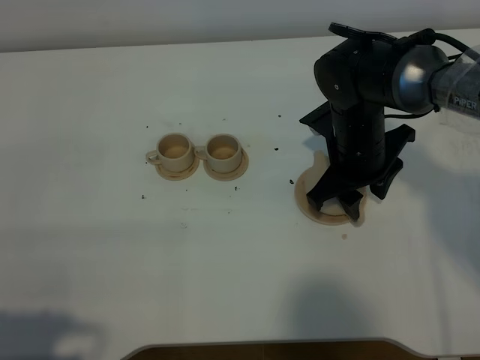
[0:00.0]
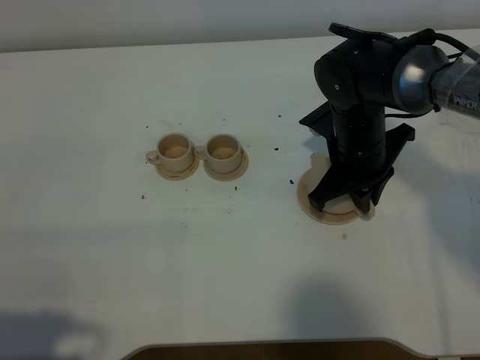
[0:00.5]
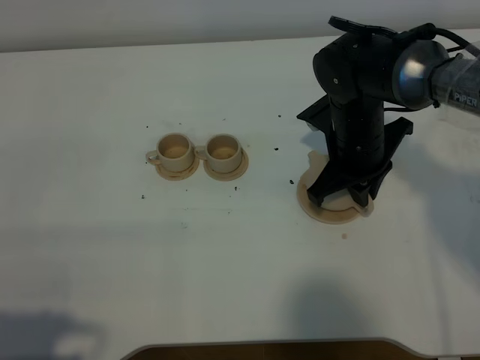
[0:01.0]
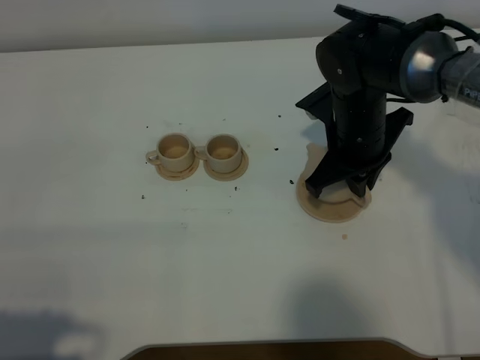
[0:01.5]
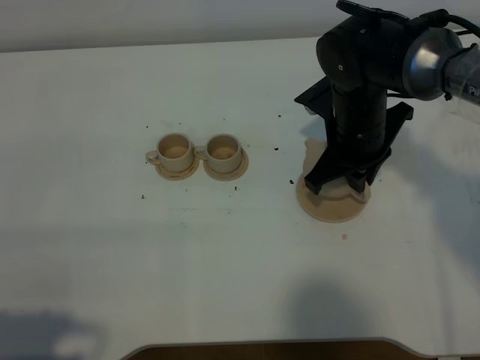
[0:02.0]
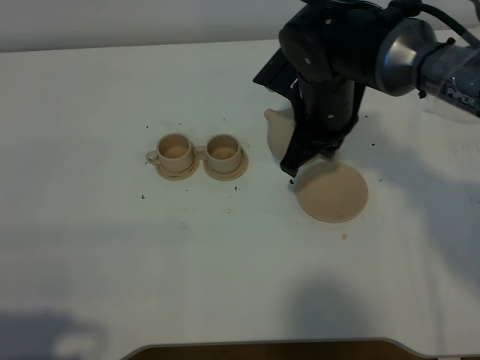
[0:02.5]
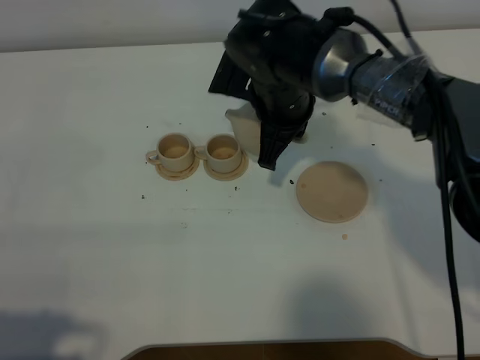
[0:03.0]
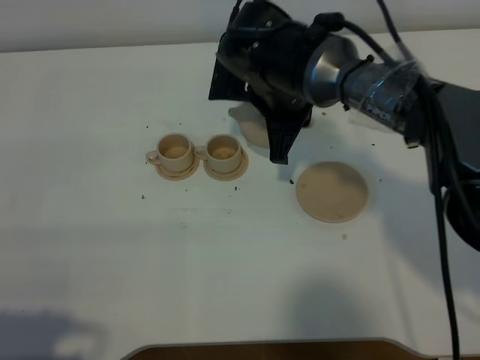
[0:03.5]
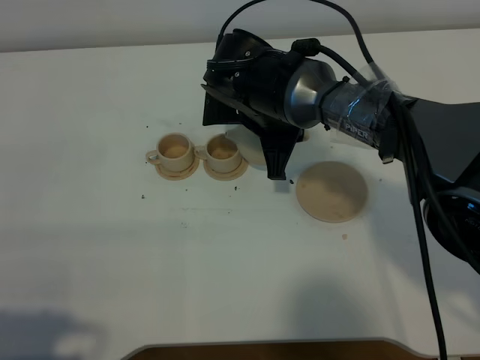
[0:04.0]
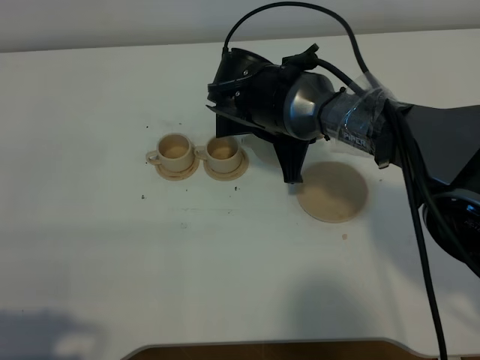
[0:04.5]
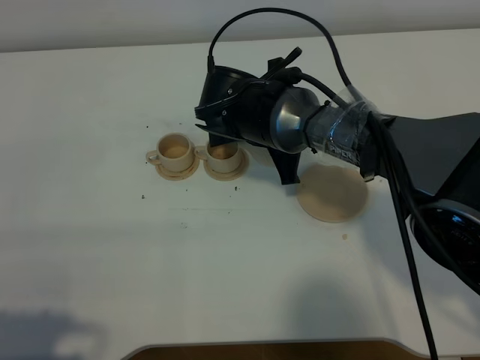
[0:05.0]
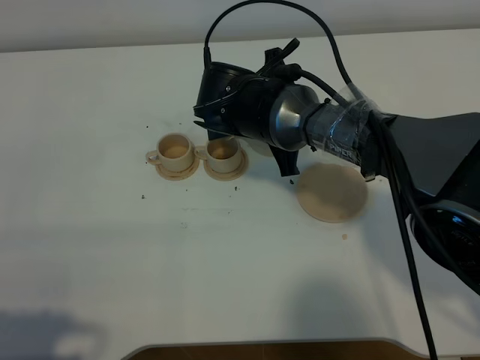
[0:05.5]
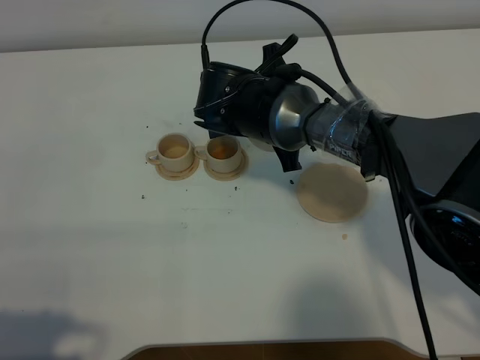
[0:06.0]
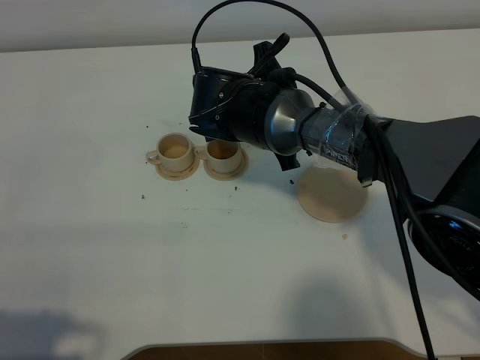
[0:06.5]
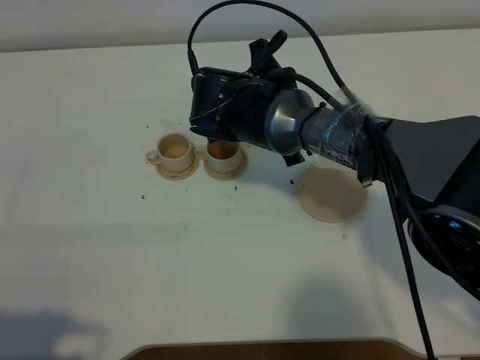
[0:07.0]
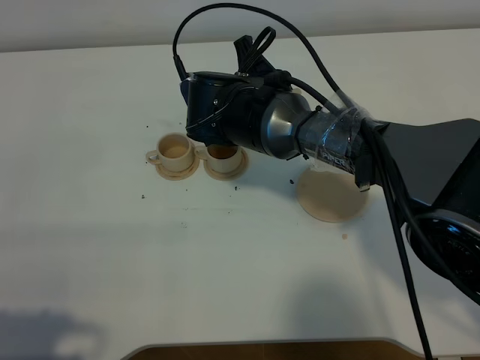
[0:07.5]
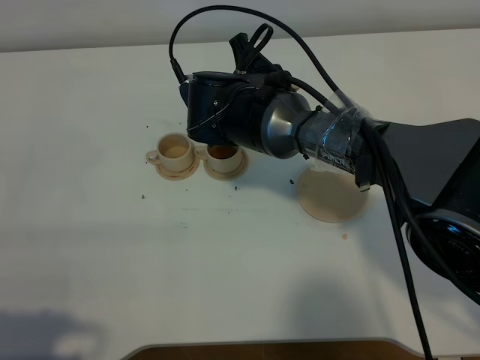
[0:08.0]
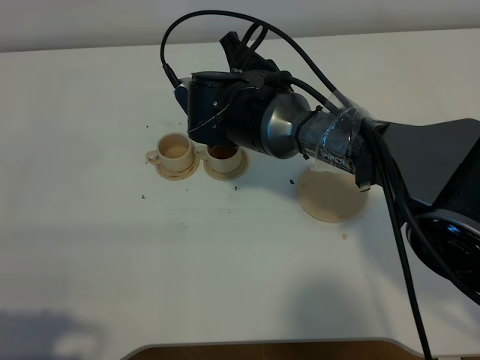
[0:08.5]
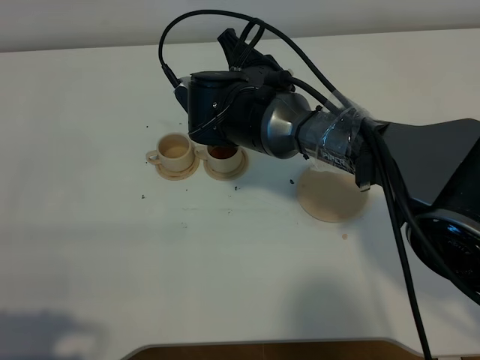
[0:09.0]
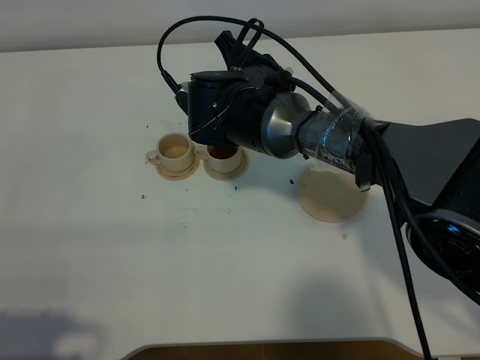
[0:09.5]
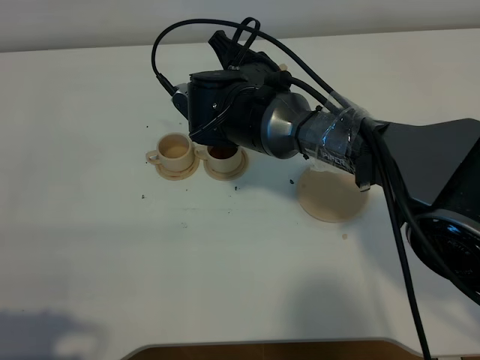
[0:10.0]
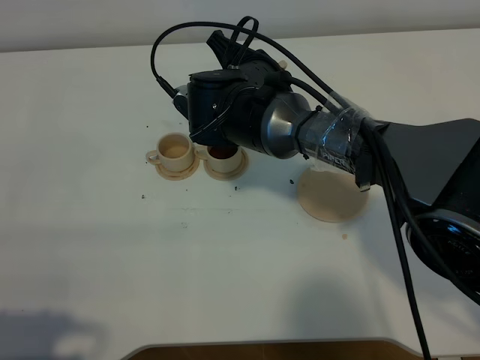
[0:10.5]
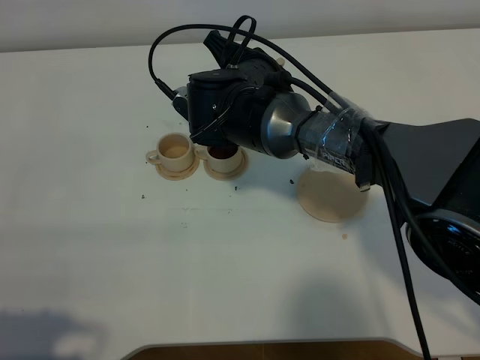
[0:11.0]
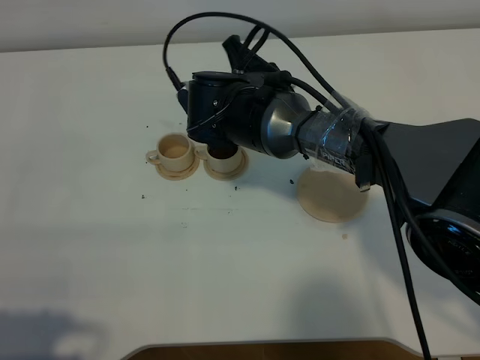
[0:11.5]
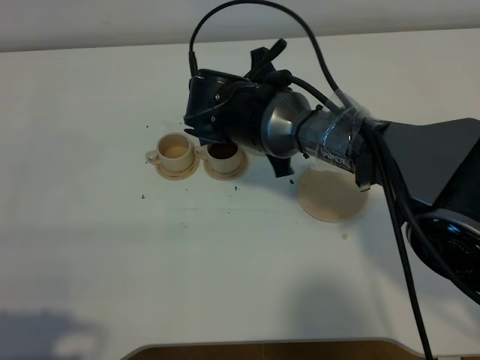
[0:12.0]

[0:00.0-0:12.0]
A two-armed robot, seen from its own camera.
Task of the whole recording: grasp the brown teapot and pour the tea into the two brown teacups one by one, put the brown teapot back in its original place.
0:00.0 to 0:02.0: The right gripper closes.
0:02.0 to 0:04.0: The right gripper travels to the left by about 10 cm.
0:04.0 to 0:06.0: The grippers move only a little.
0:06.0 to 0:08.0: There are only small adjustments of the grippers.
0:08.0 to 0:10.0: The grippers move only a little.

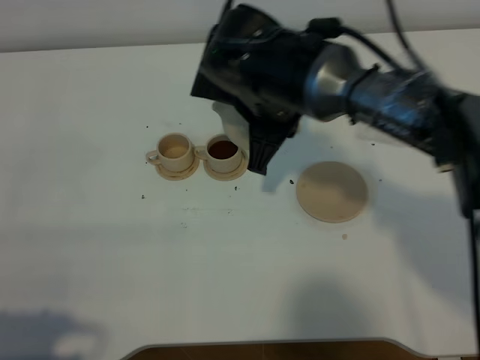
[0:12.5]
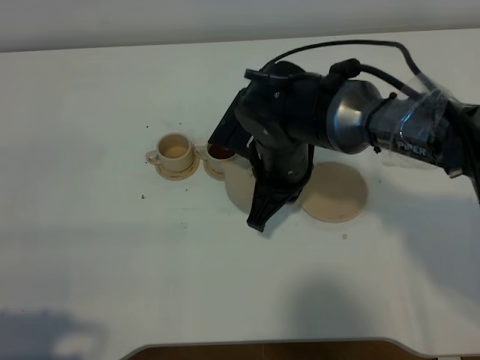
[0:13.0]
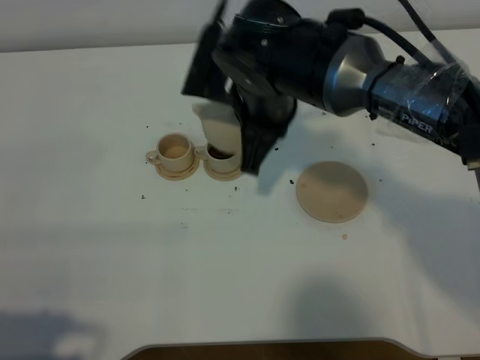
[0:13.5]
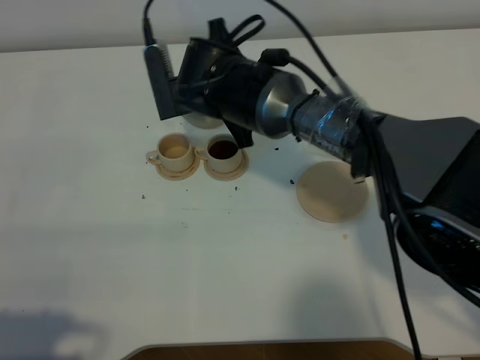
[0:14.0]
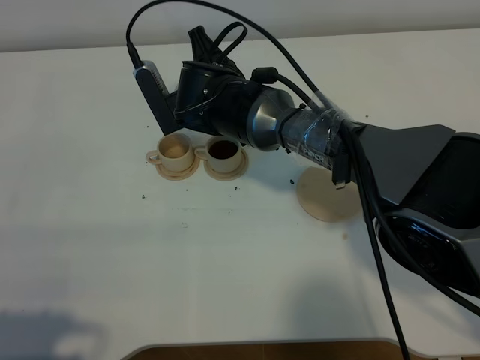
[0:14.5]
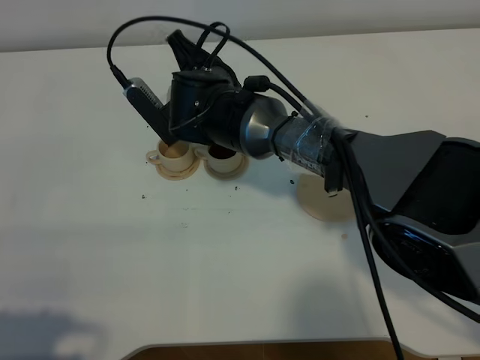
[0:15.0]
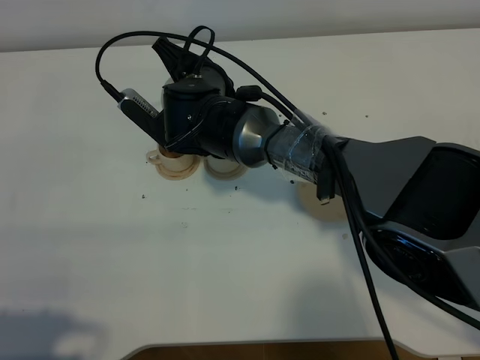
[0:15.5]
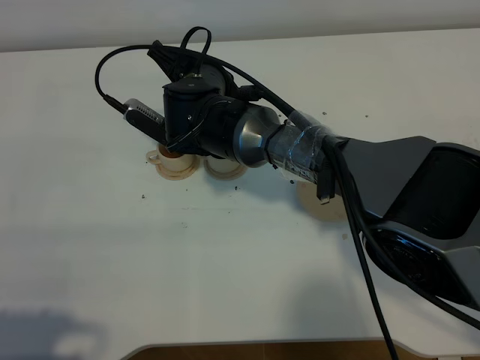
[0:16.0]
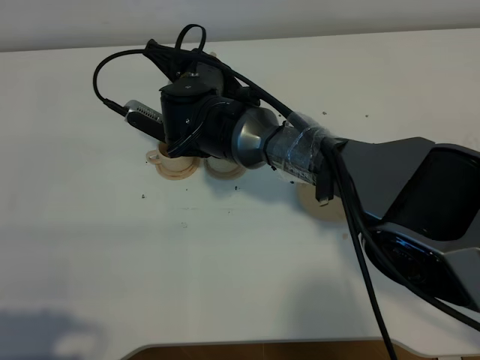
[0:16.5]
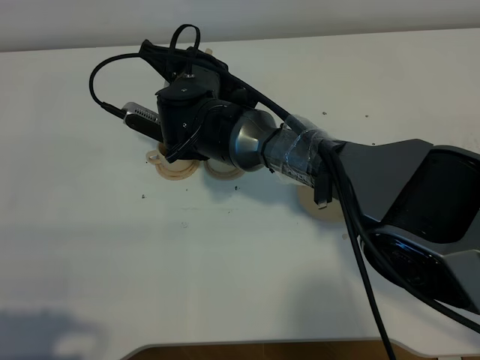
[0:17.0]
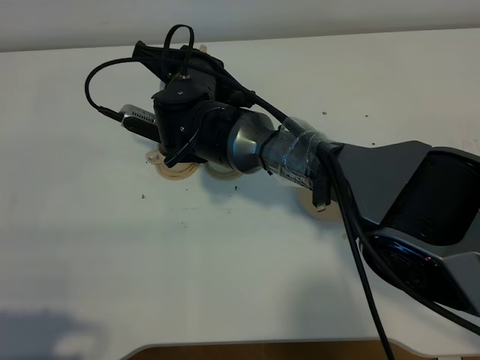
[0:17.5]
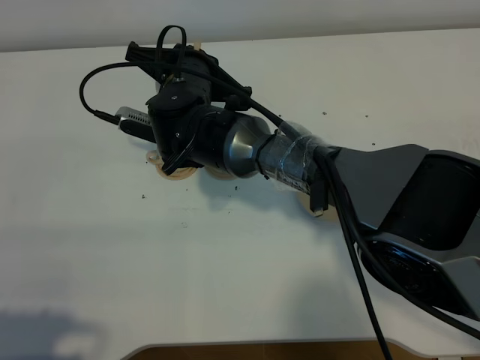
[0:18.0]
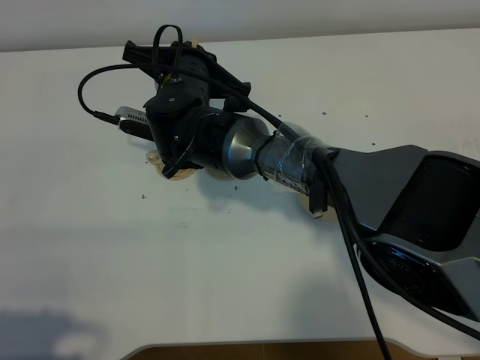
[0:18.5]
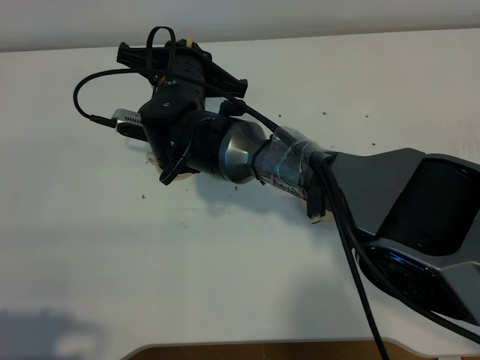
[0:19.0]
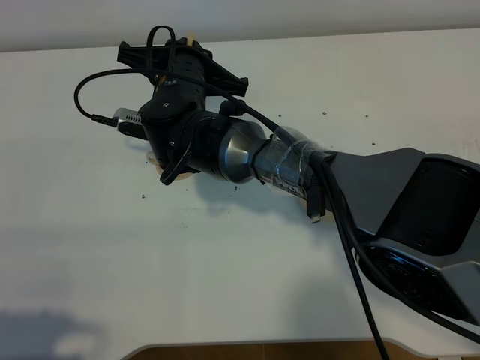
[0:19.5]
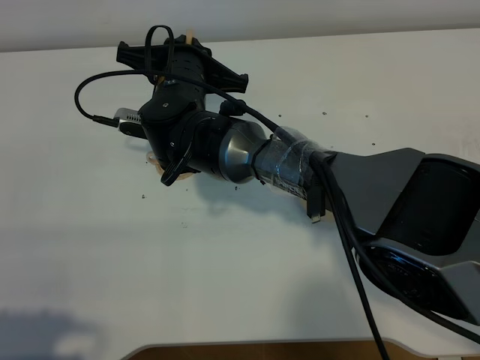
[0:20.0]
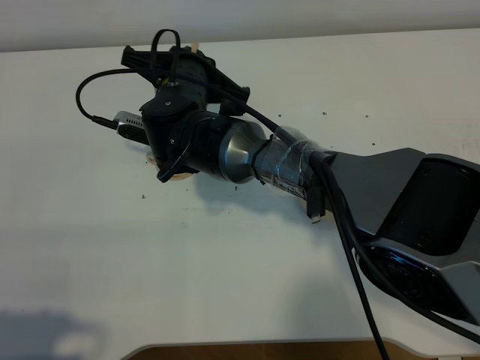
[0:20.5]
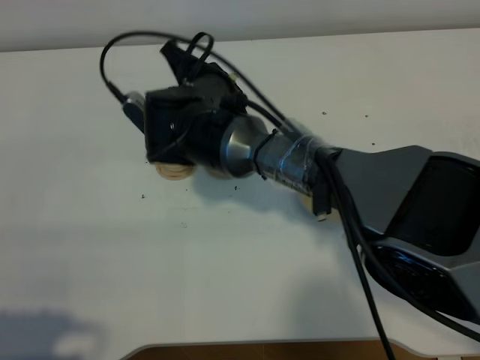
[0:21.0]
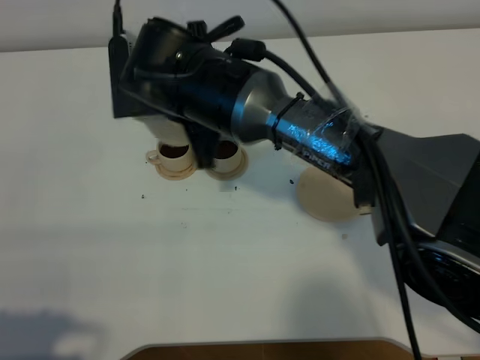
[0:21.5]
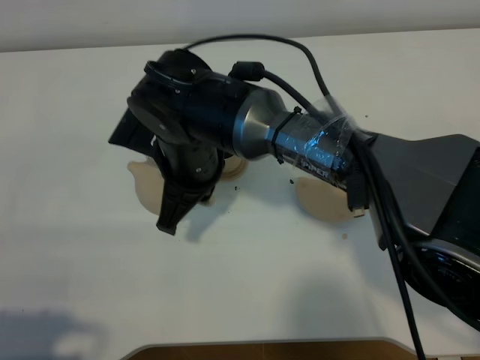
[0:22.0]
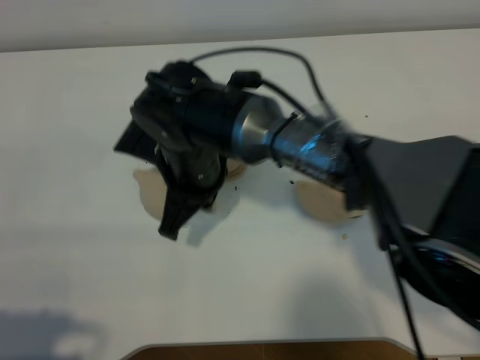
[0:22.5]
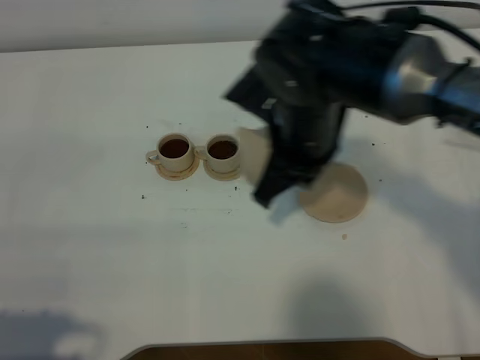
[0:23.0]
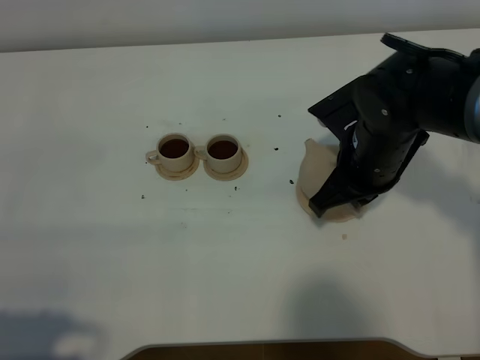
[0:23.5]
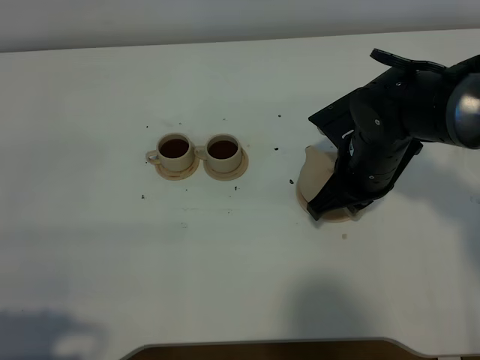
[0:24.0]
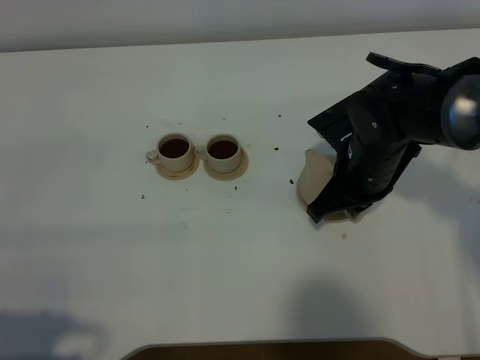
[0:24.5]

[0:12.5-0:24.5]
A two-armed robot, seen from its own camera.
Task of the whole recording: grasp the brown teapot and pour the tea into the two brown teacups one by one, put the brown teapot back in its original place.
Step, 0:13.0 to 0:21.0: Pour tea into the teacup with the right gripper.
0:12.5 to 0:14.5: The right gripper goes some 10 cm to the left, forward and downward.
0:16.5 to 0:20.5: The grippers move only a little.
0:20.5 to 0:22.5: The right gripper heads backward, covering some 10 cm.
0:22.5 to 0:24.5: The right gripper heads to the right, covering approximately 20 cm.

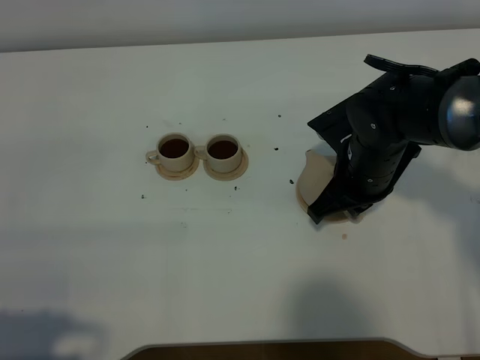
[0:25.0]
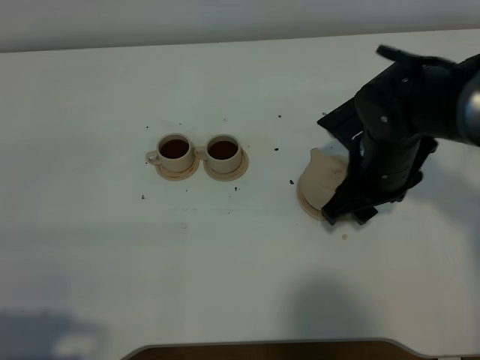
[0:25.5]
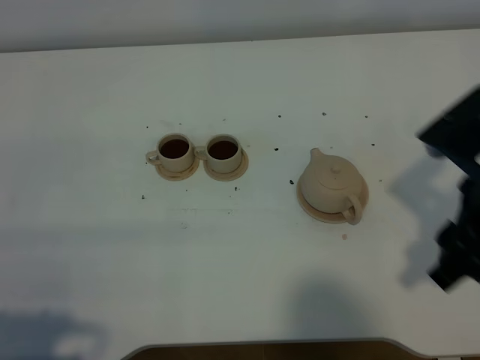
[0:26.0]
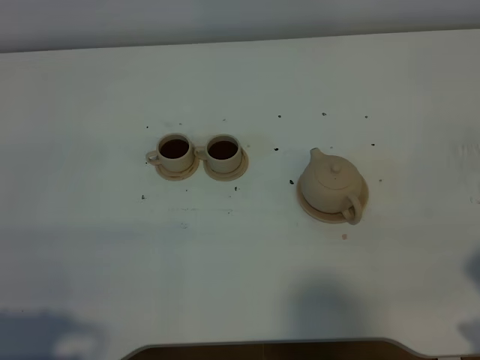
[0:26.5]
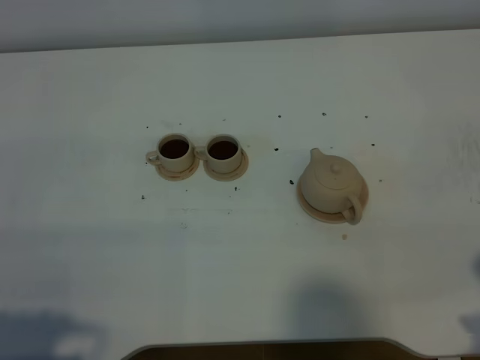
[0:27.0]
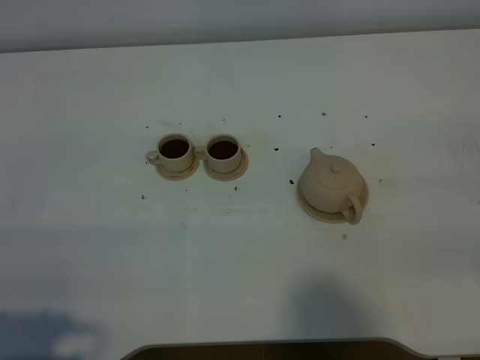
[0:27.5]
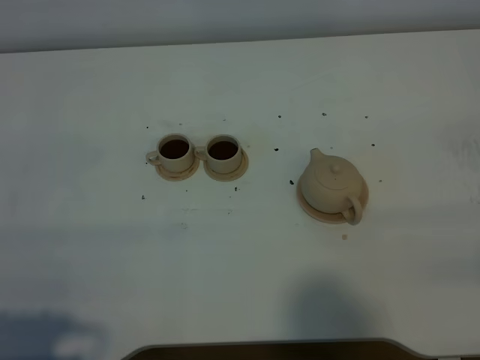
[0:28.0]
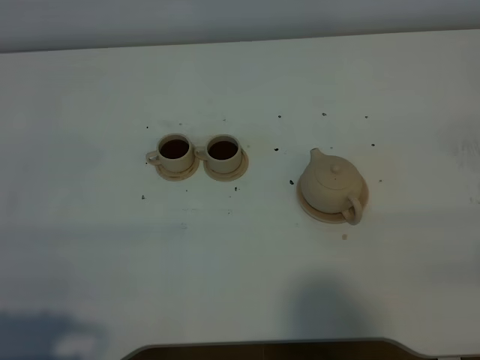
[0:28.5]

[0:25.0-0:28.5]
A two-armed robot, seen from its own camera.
Task of the whole recording: grasp the brown teapot and pour the tea into the two brown teacups one by one, put the brown teapot back in its original place.
0:25.0 to 0:27.0: The right gripper goes approximately 30 cm backward, to the right and upward, and opens.
